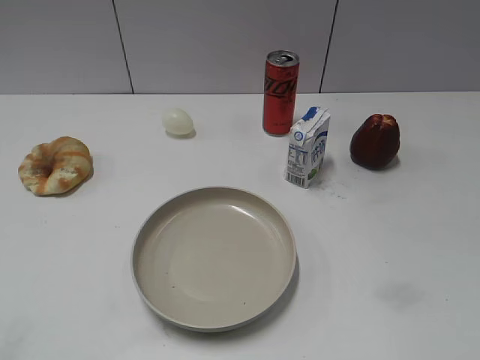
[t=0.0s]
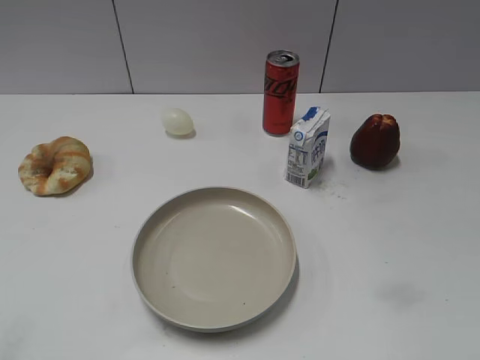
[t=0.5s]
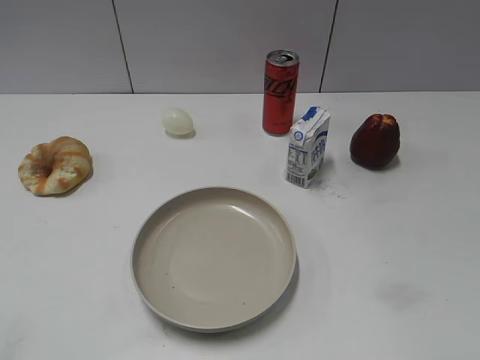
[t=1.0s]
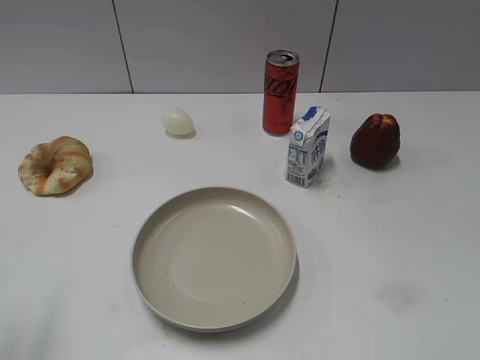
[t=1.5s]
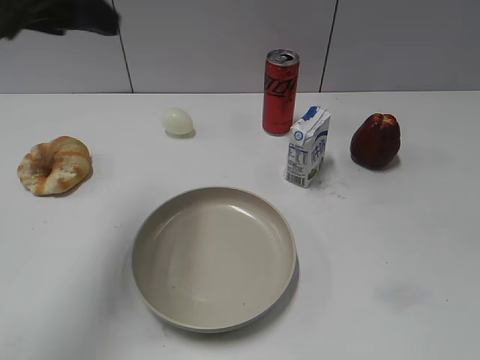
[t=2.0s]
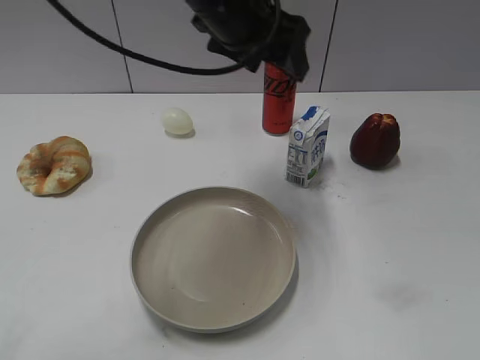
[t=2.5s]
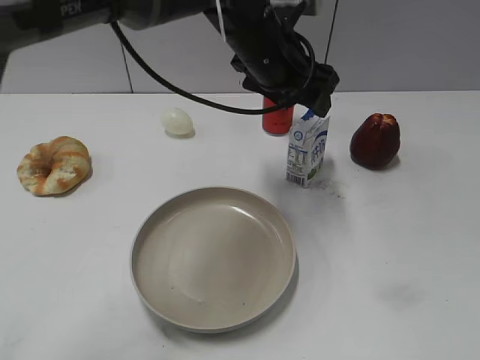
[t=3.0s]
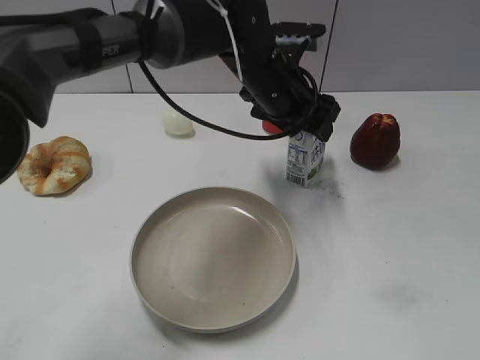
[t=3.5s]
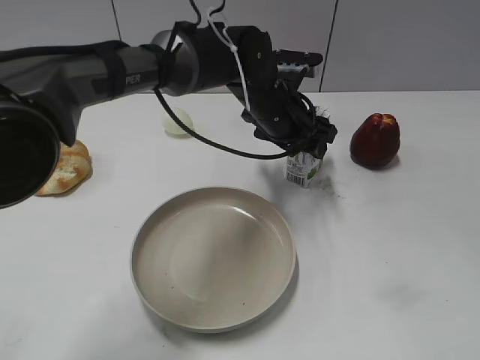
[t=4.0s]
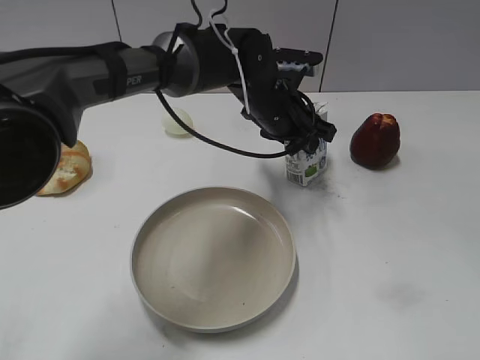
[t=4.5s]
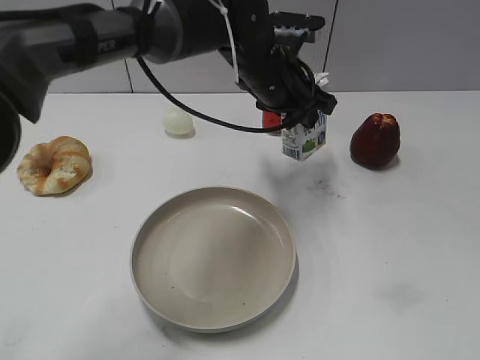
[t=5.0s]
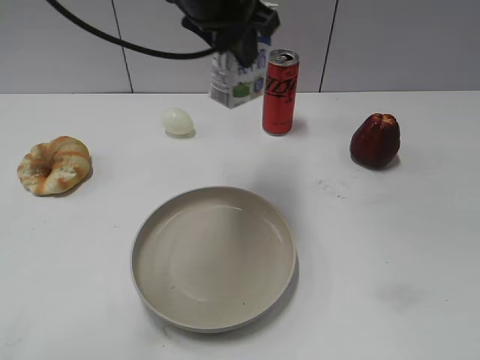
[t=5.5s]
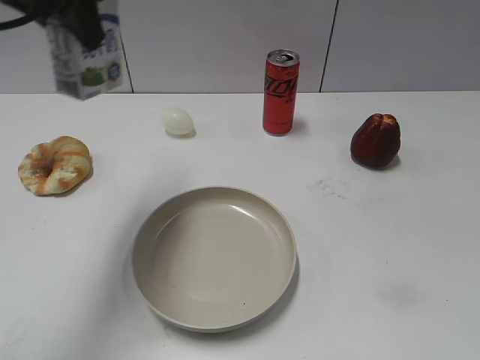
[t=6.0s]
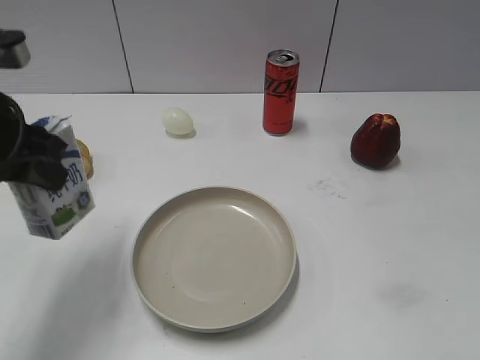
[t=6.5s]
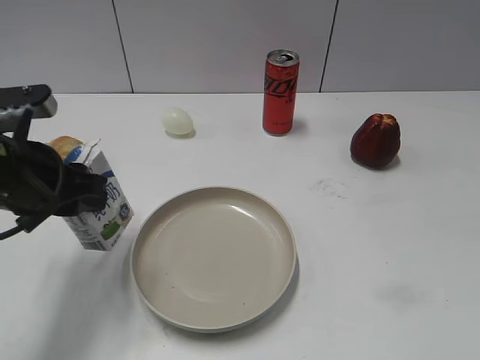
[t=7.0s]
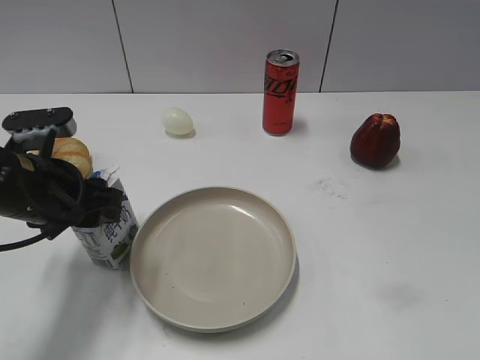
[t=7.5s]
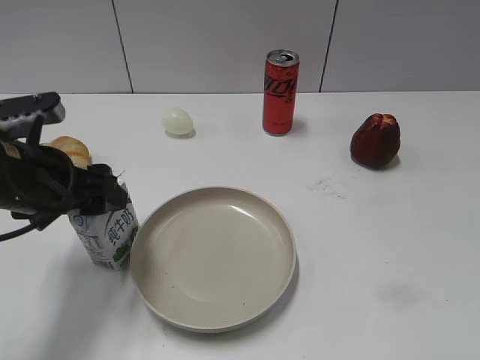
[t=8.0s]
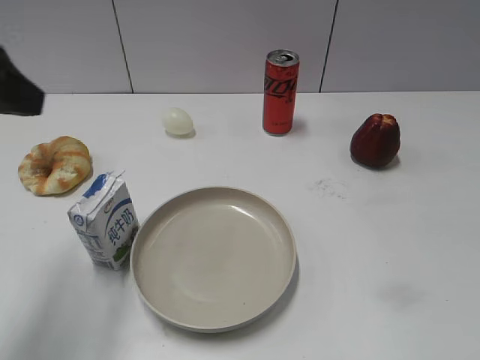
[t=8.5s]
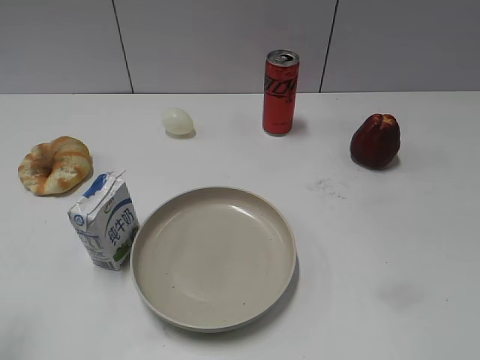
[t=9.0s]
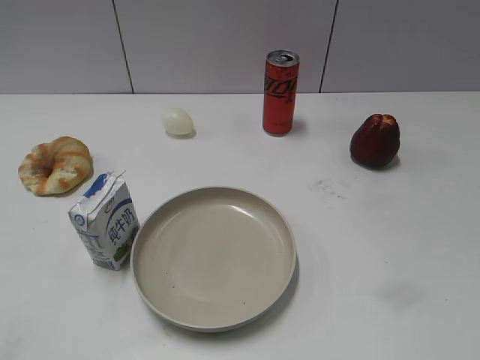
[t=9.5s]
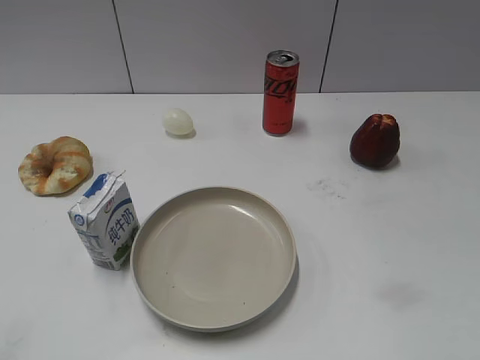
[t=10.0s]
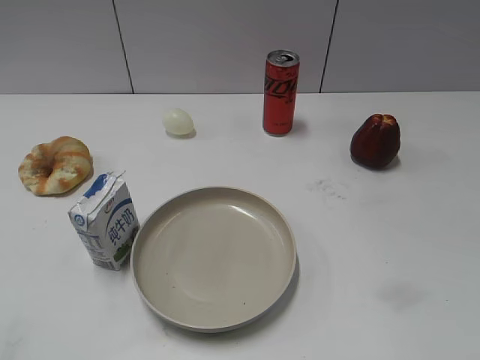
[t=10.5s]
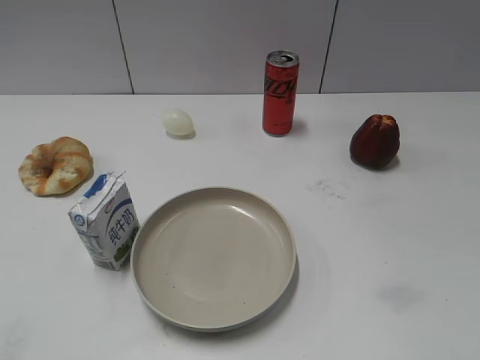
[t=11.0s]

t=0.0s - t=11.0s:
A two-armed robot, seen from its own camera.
Step, t=0.0s - t=4.5s: Grasp the milk with left gripper.
Step, t=5.0s - t=8.0s: Grasp the egg with left gripper.
t=2.0s - t=3.5s: The left gripper goes approximately 30 cm to the right and downward.
t=3.5s - t=5.5s: The left gripper travels upward and to the left by some 15 cm, and closes its fingers.
t=5.5s - t=7.5s: The left gripper heads to the left, downward and backward, covering roughly 25 cm.
t=7.5s - t=9.0s: The left gripper heads upward, backward and to the left, covering approximately 25 cm, and opens up.
